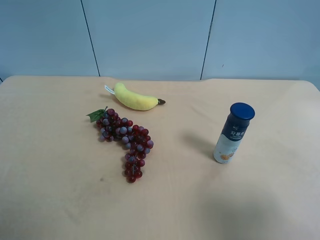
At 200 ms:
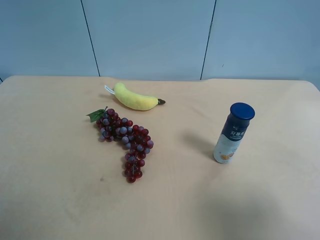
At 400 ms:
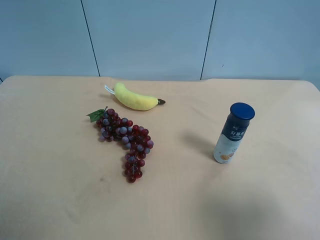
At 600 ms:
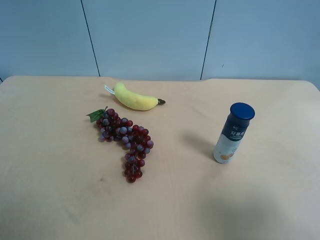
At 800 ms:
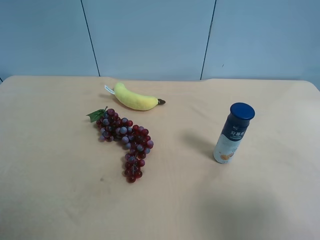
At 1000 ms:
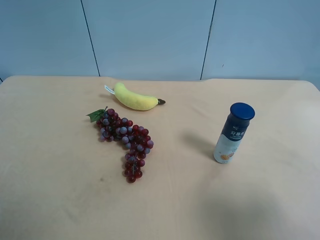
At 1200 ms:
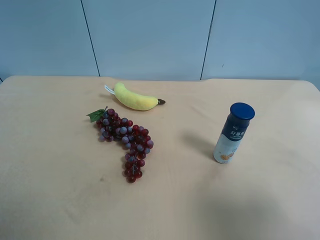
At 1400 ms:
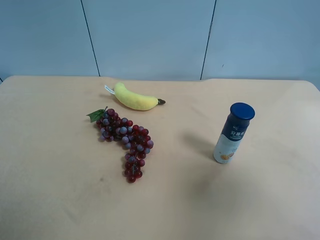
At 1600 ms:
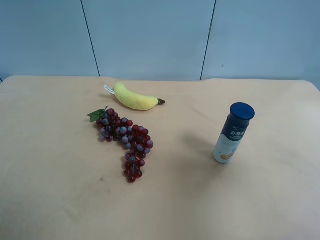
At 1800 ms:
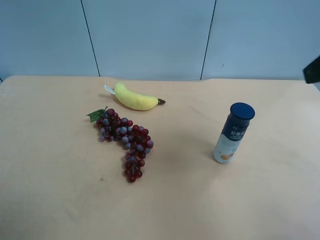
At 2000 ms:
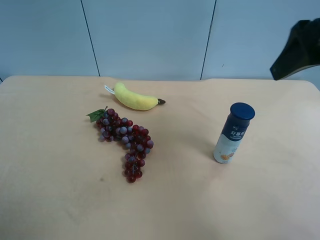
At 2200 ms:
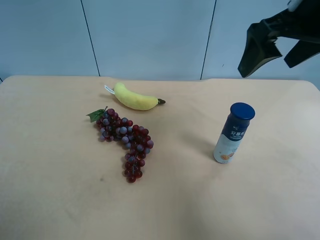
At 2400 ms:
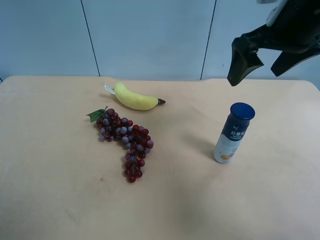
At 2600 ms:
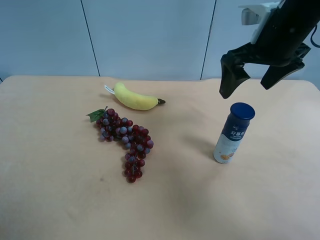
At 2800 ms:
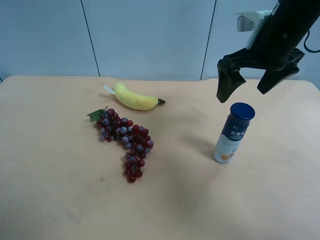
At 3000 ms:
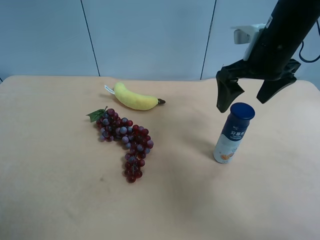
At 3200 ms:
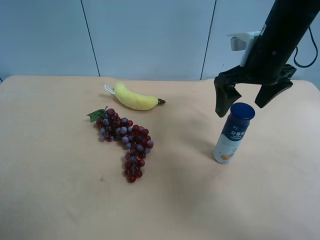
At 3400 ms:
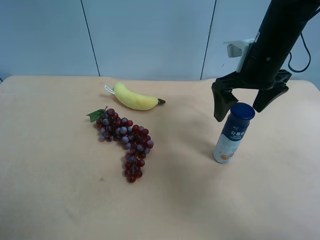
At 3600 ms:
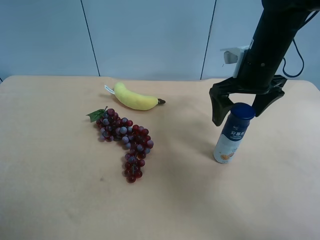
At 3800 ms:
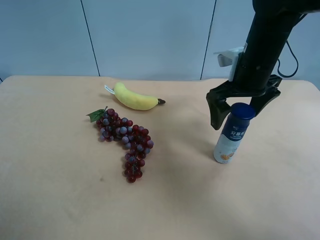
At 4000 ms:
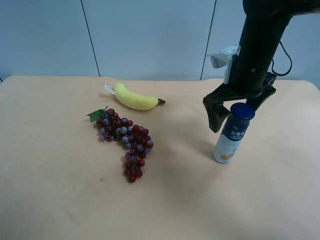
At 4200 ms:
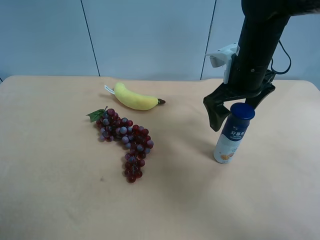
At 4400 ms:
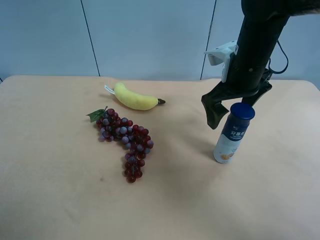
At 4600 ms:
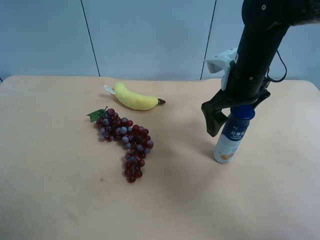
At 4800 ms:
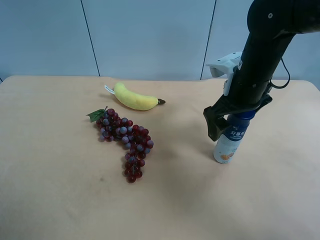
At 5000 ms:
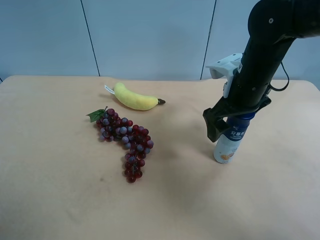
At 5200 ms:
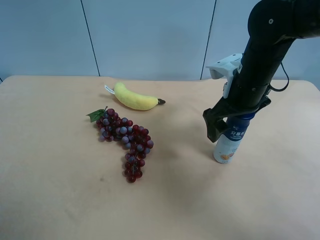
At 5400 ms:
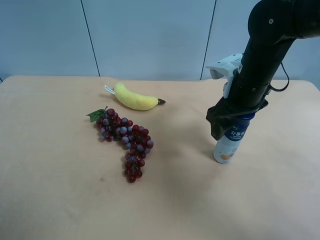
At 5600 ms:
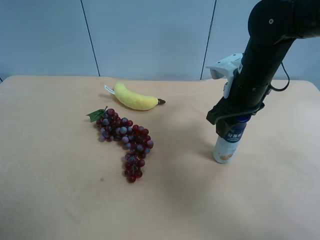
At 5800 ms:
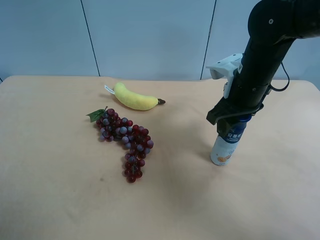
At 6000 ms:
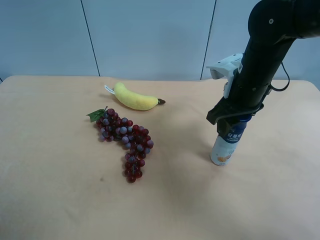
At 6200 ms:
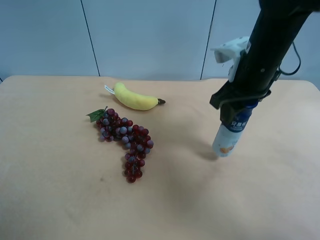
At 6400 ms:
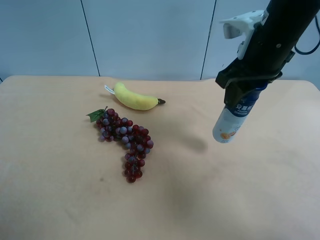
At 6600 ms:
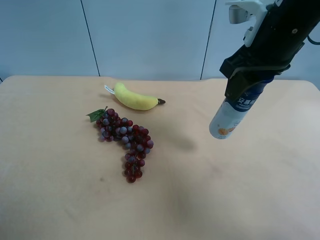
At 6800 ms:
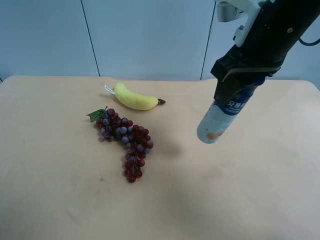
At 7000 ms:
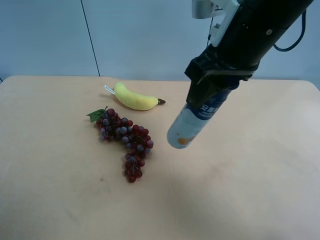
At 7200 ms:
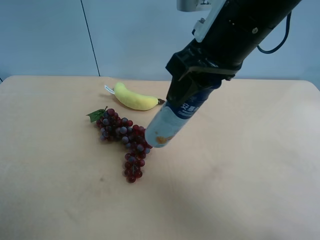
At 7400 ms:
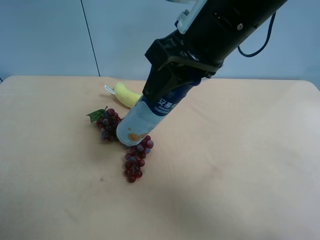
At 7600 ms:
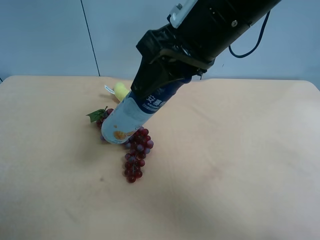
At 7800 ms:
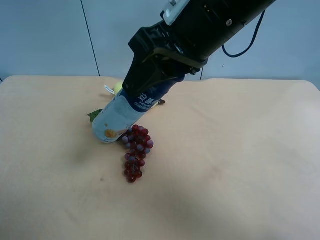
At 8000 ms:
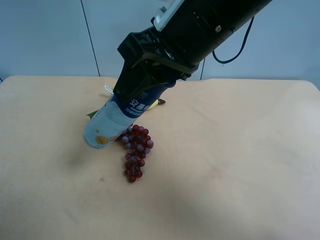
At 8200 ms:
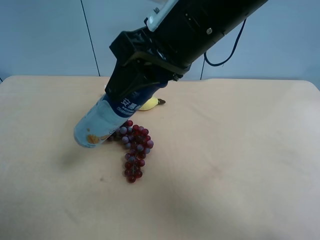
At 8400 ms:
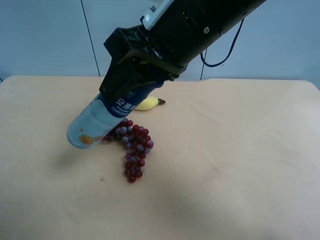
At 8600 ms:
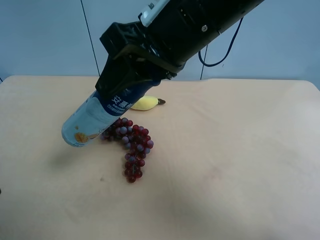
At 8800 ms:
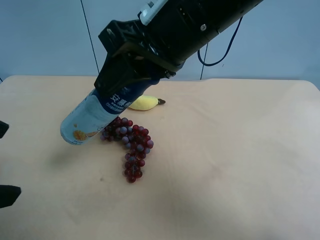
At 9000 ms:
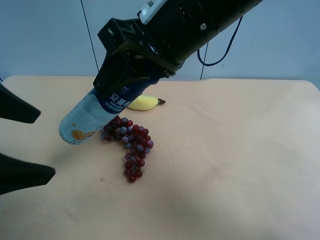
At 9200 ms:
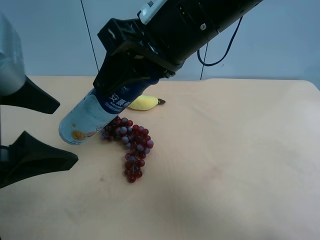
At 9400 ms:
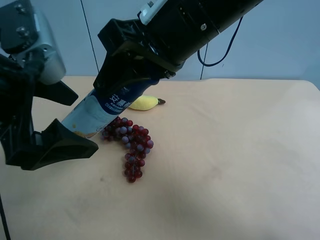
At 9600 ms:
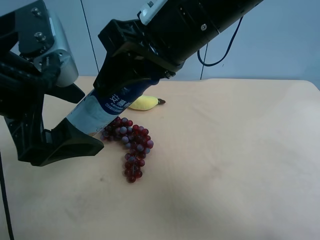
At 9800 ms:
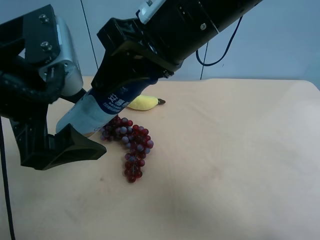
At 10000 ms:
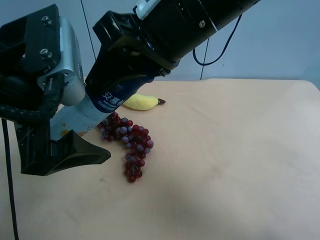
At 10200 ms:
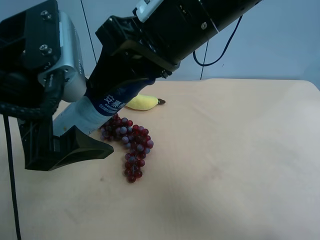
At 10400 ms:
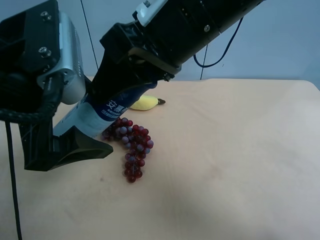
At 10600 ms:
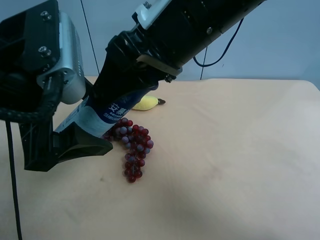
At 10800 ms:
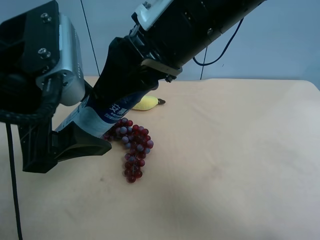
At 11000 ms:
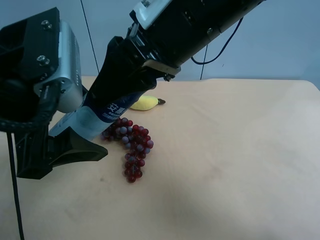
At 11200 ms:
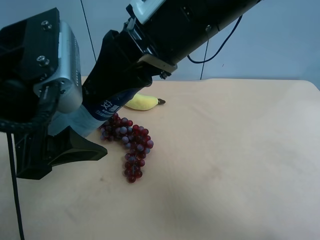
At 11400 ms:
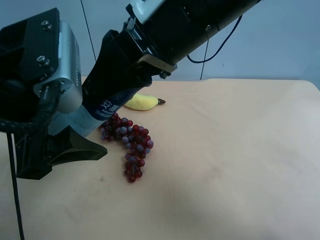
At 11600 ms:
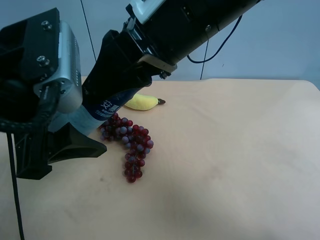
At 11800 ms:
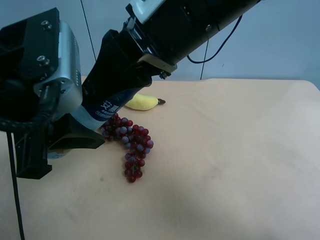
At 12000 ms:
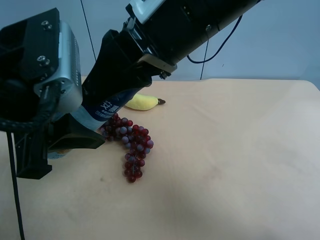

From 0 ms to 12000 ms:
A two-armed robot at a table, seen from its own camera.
Task of the whole recording: use the right gripper to pick up the item and transfer it from the right gripper to the left gripper.
From 0 ms to 1600 ms: The right gripper moves forward and upward, about 15 cm.
From 1600 ms to 3000 ms: The right gripper moves forward, to the left and downward, roughly 25 cm.
From 3000 ms to 4400 ms: There are only small adjustments of the grippers.
From 4400 ms to 6000 ms: The right gripper closes its fingers.
From 6000 ms to 7600 ms: The right gripper moves upward, to the left and backward, some 15 cm.
From 7600 ms to 9000 ms: The left gripper heads forward and to the right, covering roughly 10 cm.
From 9000 ms to 10400 ms: The left gripper travels to the right by roughly 5 cm.
From 10400 ms to 12000 ms: The left gripper closes its fingers.

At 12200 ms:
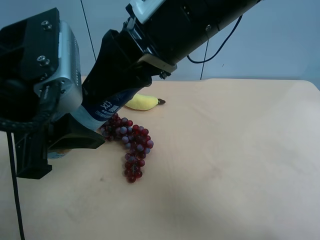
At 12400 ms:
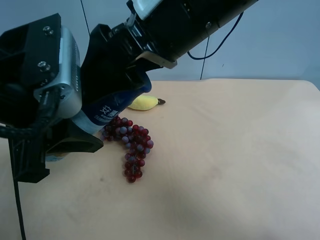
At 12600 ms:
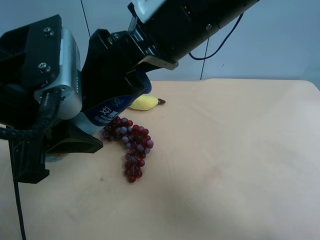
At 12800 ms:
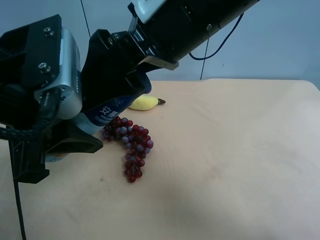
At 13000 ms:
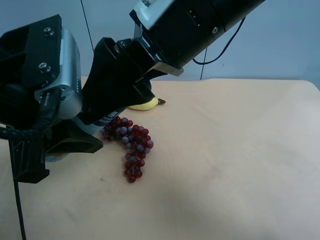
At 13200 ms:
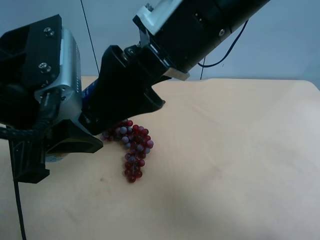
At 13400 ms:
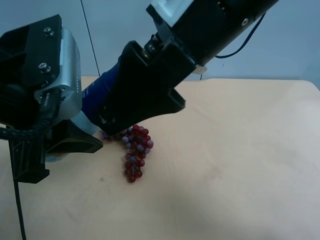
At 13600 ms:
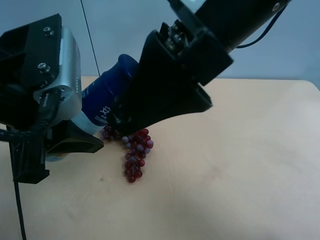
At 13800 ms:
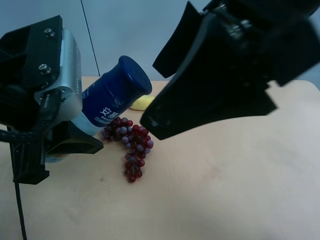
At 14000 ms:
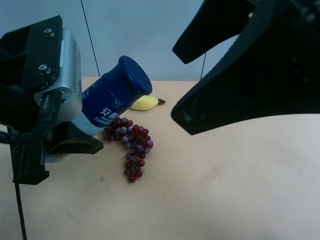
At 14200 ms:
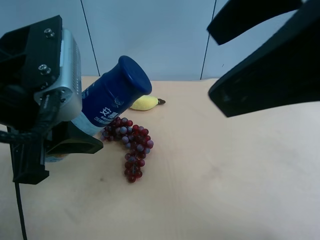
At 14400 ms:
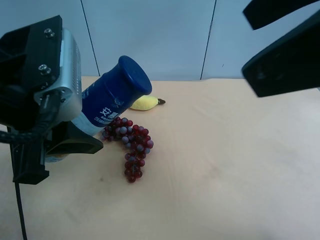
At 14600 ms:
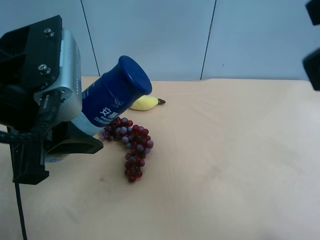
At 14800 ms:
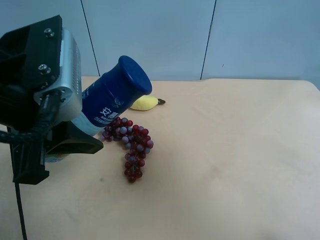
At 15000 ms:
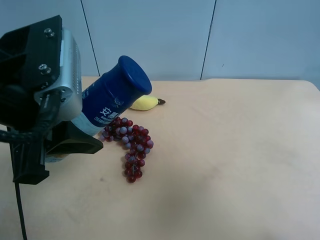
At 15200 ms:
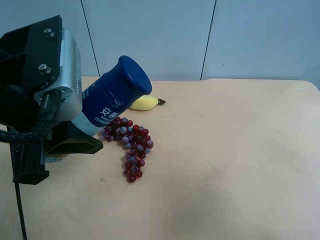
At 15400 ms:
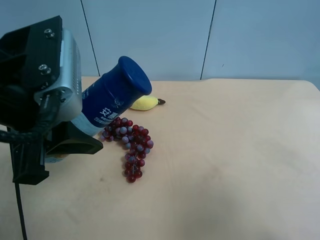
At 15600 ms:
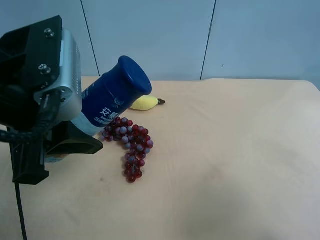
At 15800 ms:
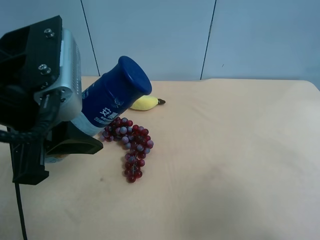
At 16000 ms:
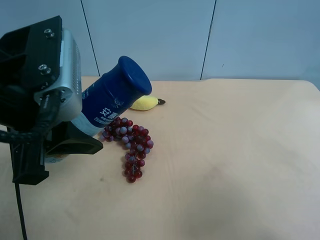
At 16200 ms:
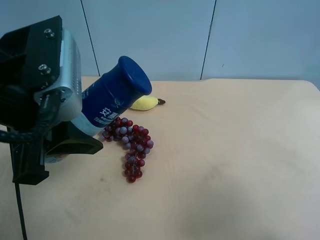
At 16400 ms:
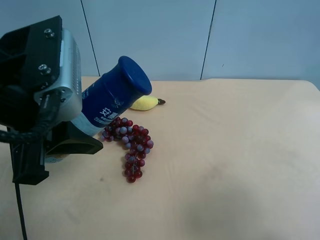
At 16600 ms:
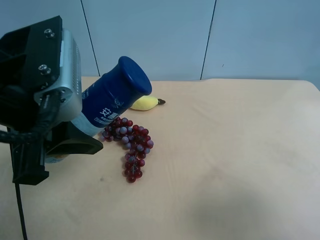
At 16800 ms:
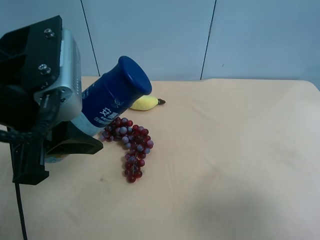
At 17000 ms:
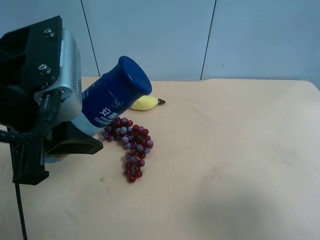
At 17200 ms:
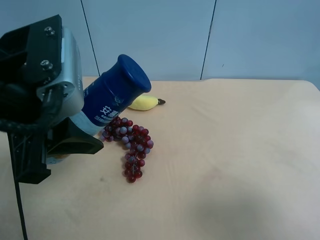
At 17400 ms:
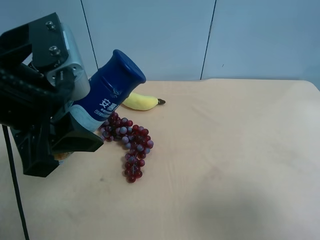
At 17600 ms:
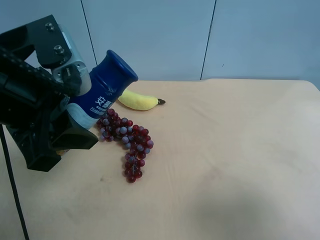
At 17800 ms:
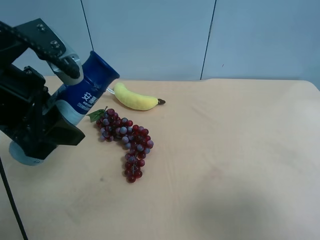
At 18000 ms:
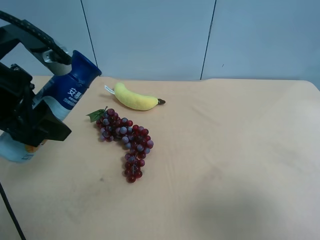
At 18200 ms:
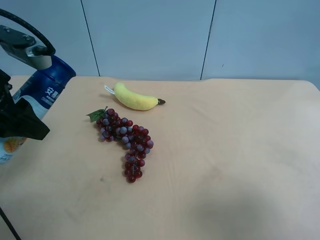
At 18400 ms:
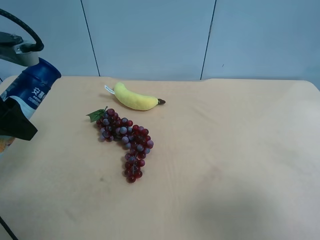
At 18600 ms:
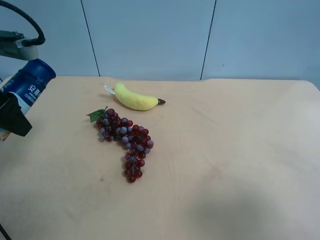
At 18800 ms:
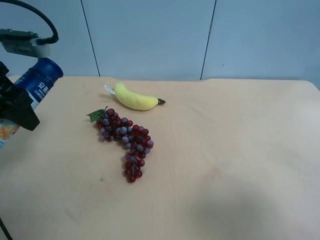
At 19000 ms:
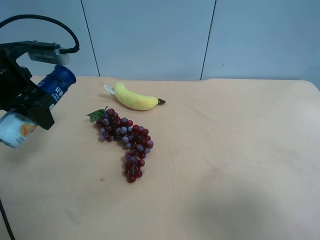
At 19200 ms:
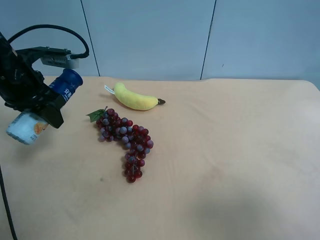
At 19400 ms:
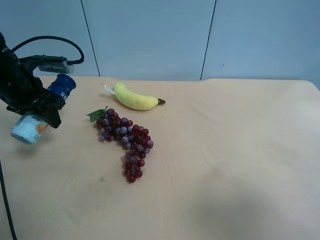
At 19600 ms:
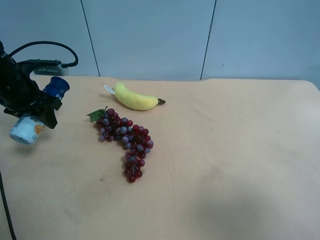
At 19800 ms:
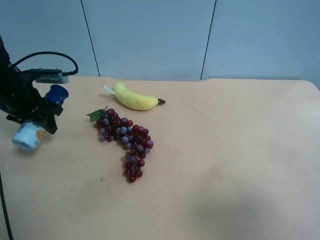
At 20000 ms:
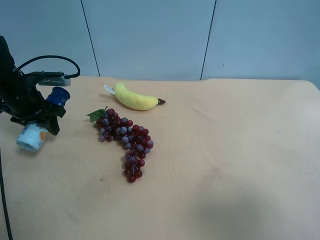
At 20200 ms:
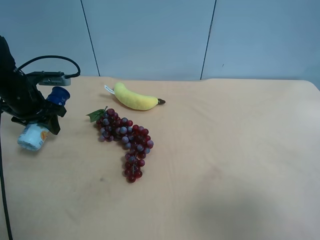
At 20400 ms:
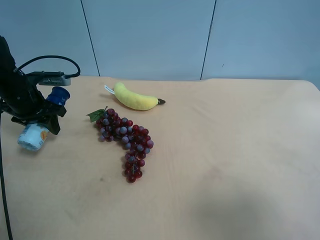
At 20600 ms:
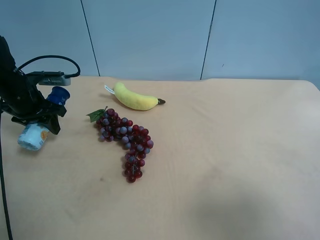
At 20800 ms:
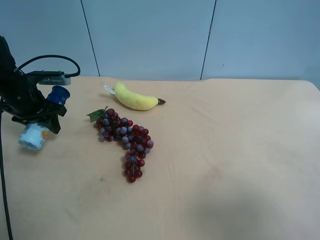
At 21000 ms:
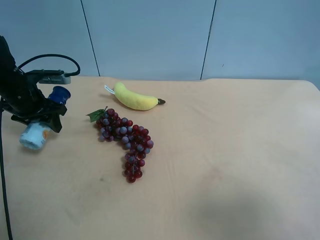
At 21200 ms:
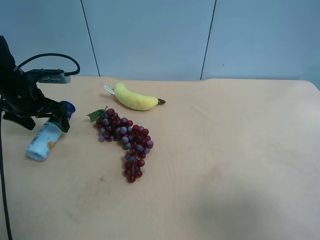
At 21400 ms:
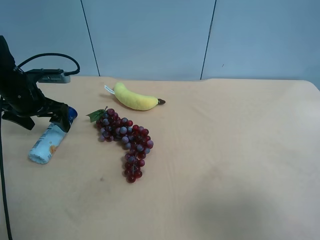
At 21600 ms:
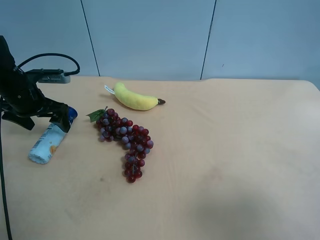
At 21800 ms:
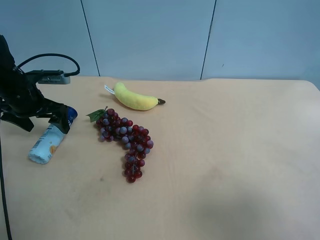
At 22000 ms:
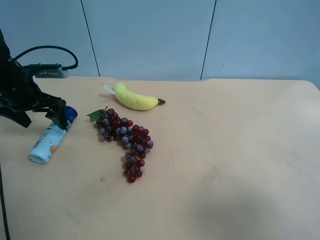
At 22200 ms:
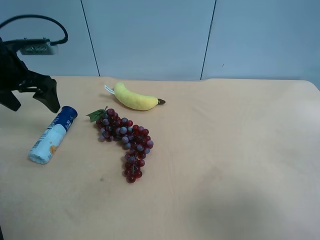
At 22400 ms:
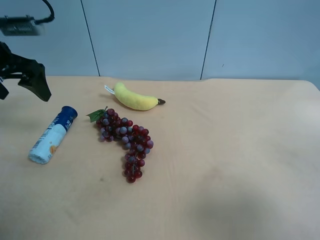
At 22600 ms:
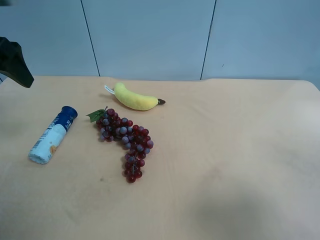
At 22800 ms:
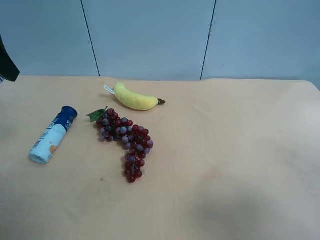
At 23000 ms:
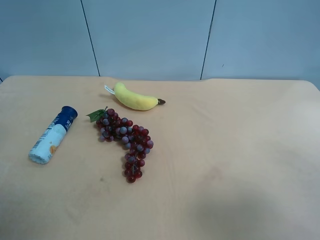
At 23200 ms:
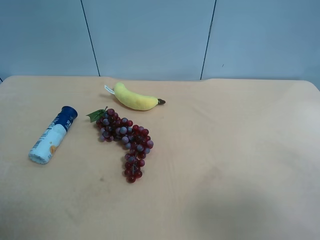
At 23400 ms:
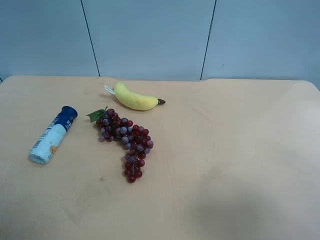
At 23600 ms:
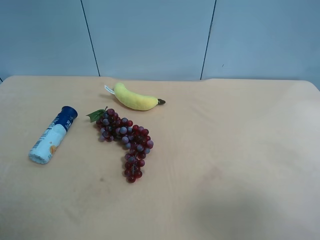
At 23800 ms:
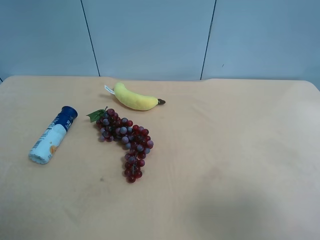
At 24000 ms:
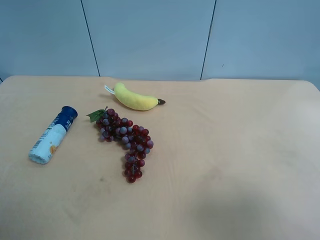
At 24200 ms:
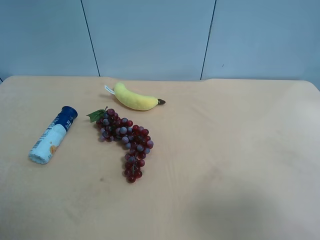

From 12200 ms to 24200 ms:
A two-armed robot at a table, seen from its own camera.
Task of the whole recording: use the right gripper to pick up the item and transfer it from the right gripper to the left gripper.
From 12200 ms to 13800 ms: The right gripper is displaced to the right and backward by about 10 cm, and opens.
From 13800 ms to 15200 ms: The right gripper travels to the right, backward and downward by roughly 25 cm.
From 16600 ms to 18200 ms: The left gripper is displaced to the left by about 10 cm.
From 18200 ms to 19800 ms: The left gripper shifts about 20 cm forward, downward and to the left.
From 19800 ms to 21200 ms: The left gripper opens its fingers.
From 21200 ms to 22600 ms: The left gripper moves upward and backward, roughly 20 cm.
From 22600 ms to 24200 ms: The left gripper shifts about 25 cm backward.
